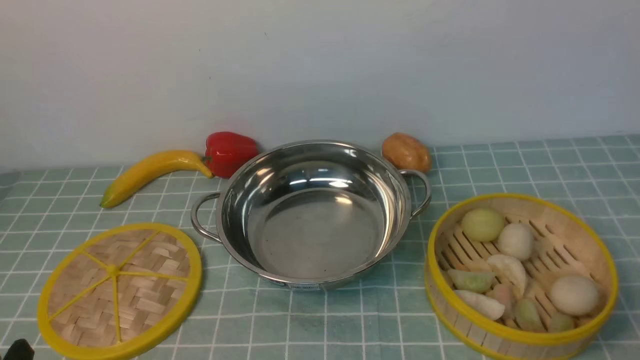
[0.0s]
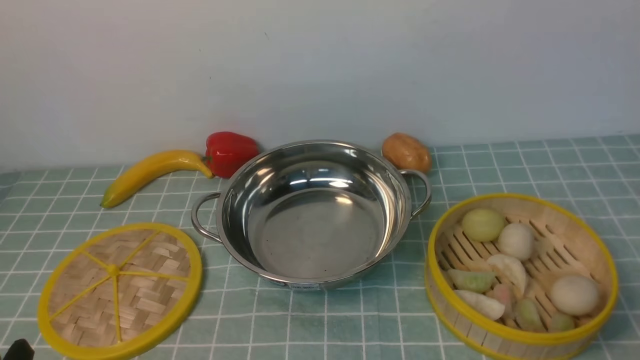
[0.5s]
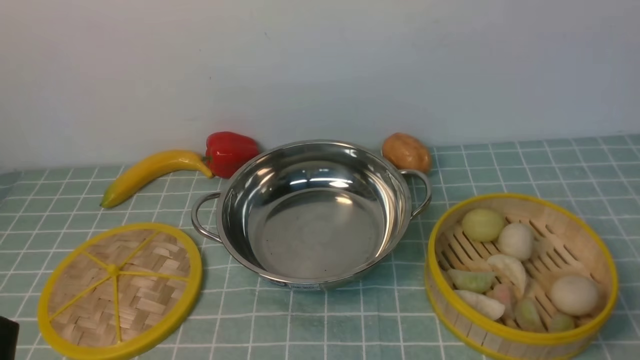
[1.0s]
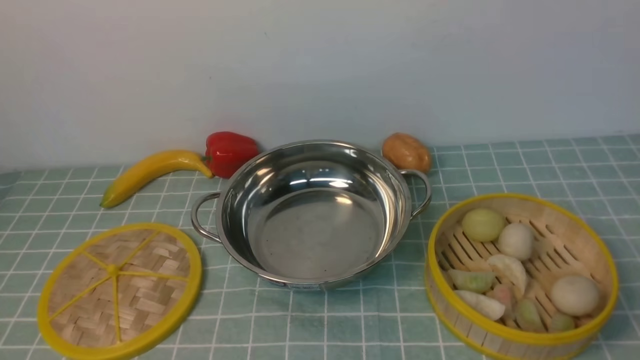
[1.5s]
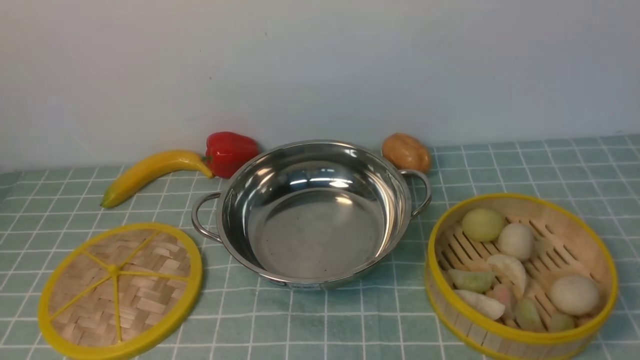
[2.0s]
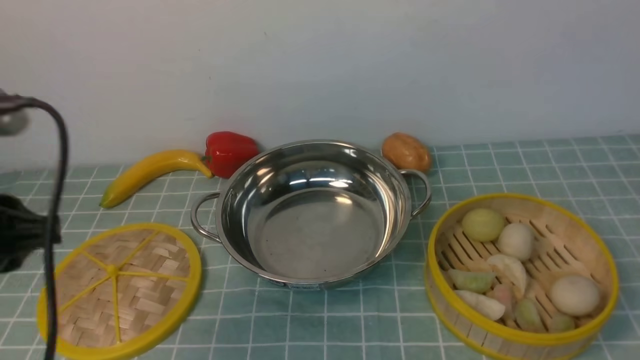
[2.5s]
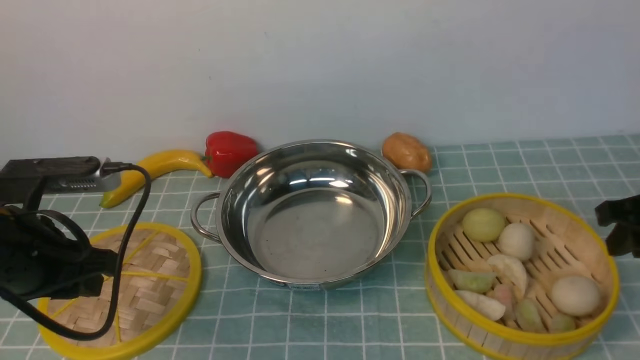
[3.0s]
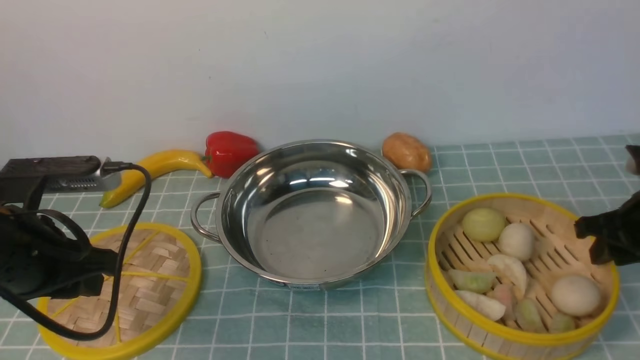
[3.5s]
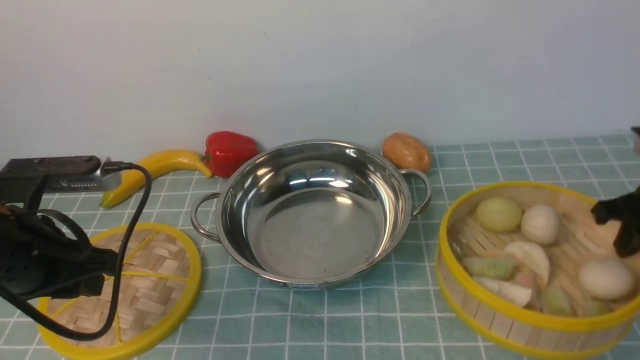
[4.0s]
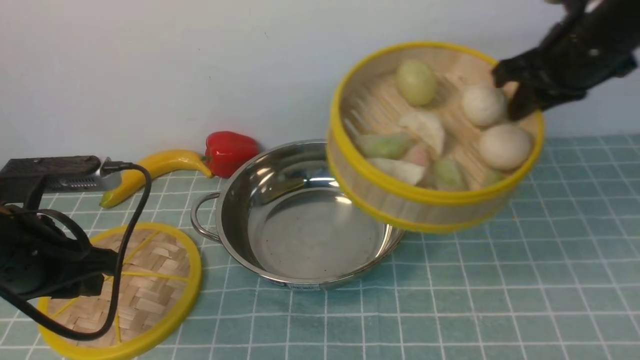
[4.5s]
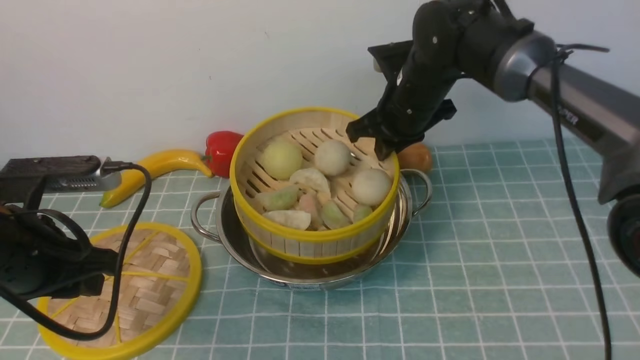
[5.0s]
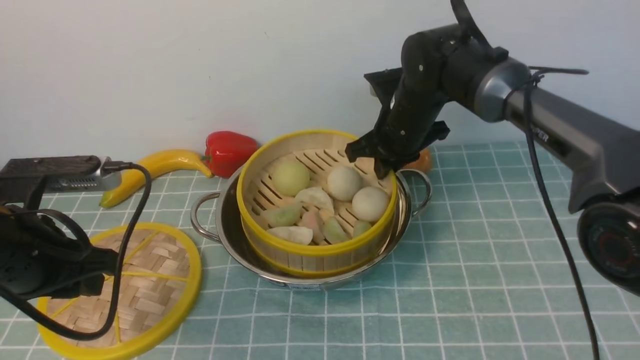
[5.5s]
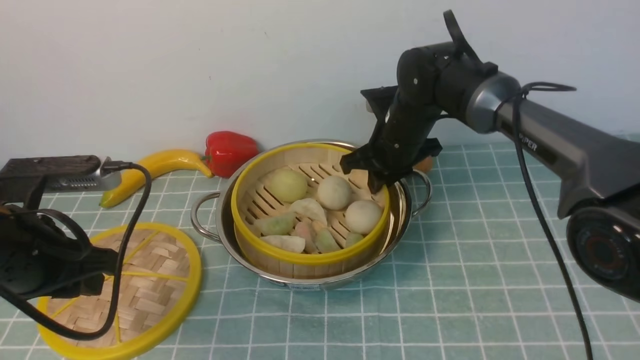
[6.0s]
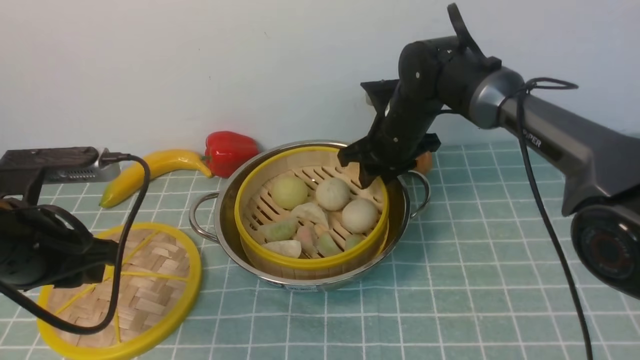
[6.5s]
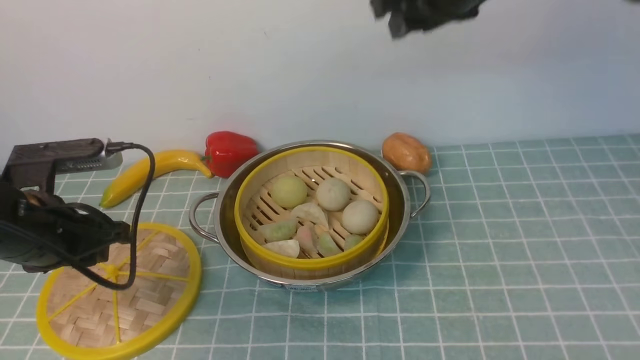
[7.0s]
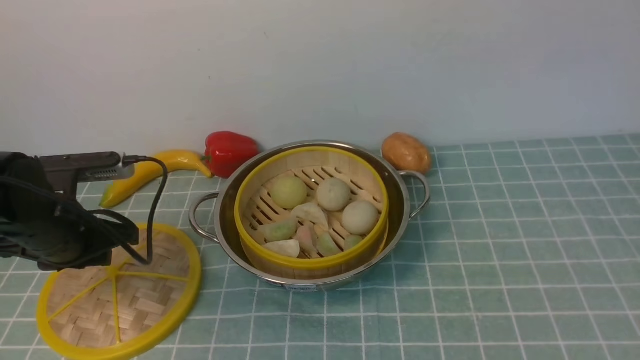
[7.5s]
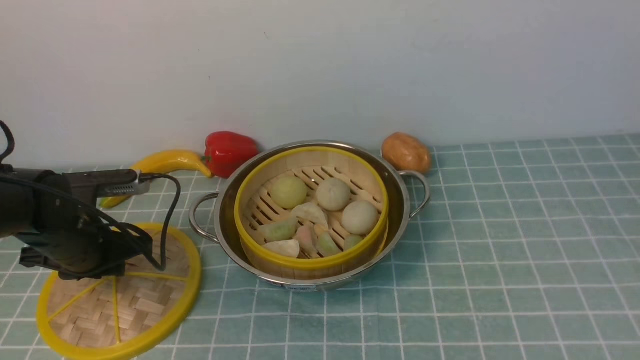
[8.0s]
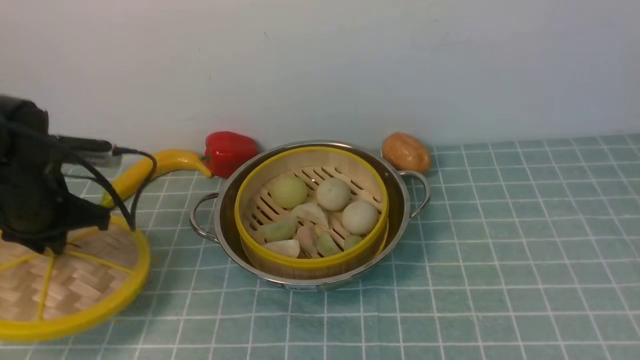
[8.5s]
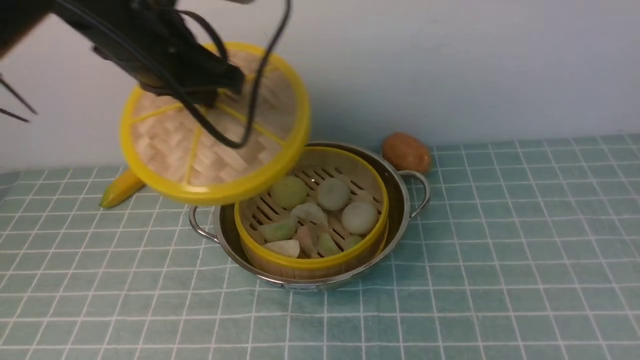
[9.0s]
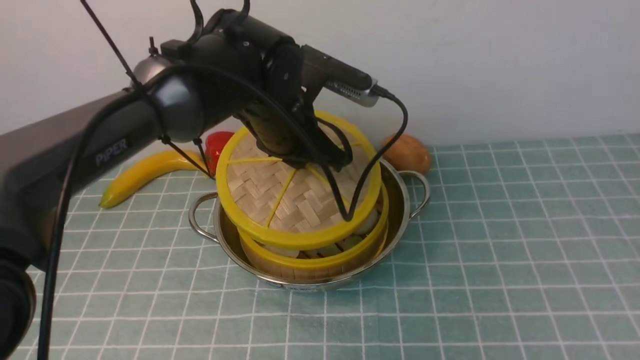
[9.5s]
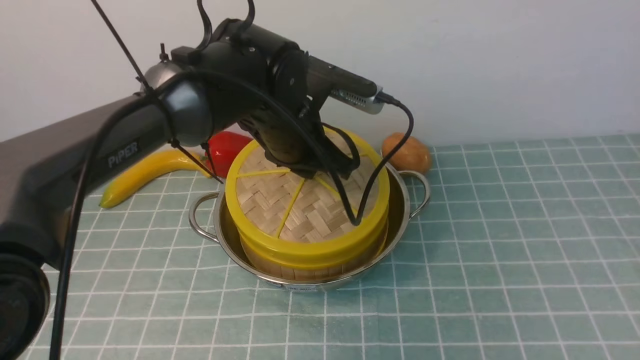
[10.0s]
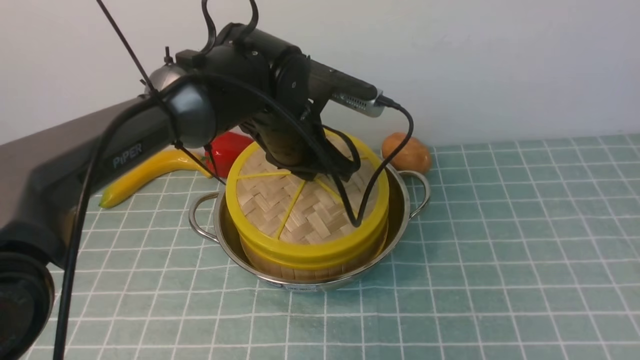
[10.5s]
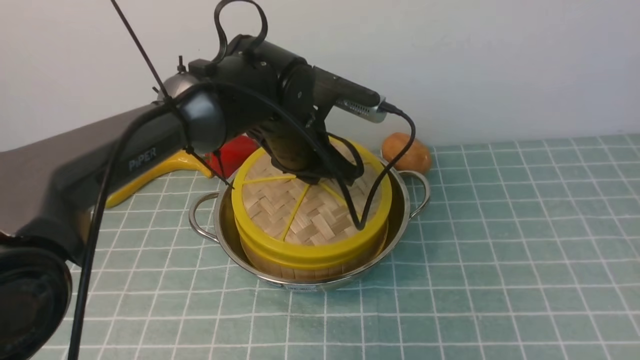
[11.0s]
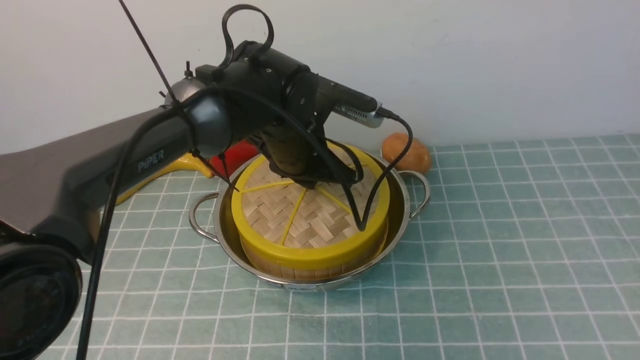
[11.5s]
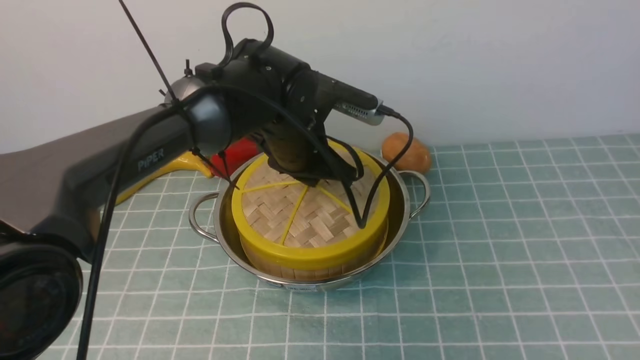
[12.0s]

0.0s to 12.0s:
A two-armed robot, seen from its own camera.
Task of the whole recording: place the steamer in the pot on the blue tablecloth, and put the lid on the steamer.
Step, 0.0s to 4.0s: use the right arm to lift the steamer closest to it.
Step, 4.5s to 6.5s: use the right arm to put the steamer into the iron steamer pot in the middle.
Step, 7.0s to 8.5s: use the left arm to lift the lid of the steamer.
2.0s to 4.0s: Both grippers travel together forward and downward, approximately 30 cm. The right gripper closes.
4.0s to 6.0s: The right gripper moves to the left and forward, approximately 30 cm.
6.0s to 8.0s: The left gripper travels downward and forward by some 15 cm; the right gripper is displaced backward, upward and to the right by about 60 cm, and opens up.
8.0s to 10.0s: The left gripper travels to the right and upward by approximately 25 cm.
10.0s to 12.0s: The grippers move only a little.

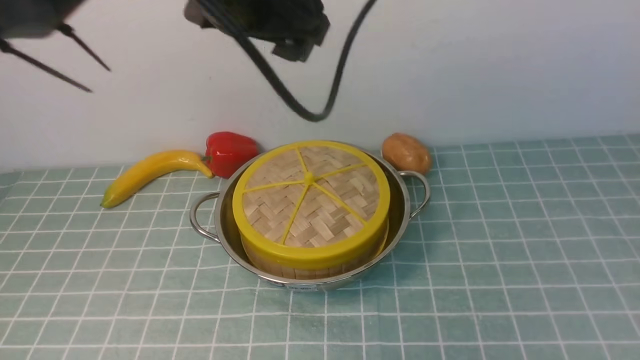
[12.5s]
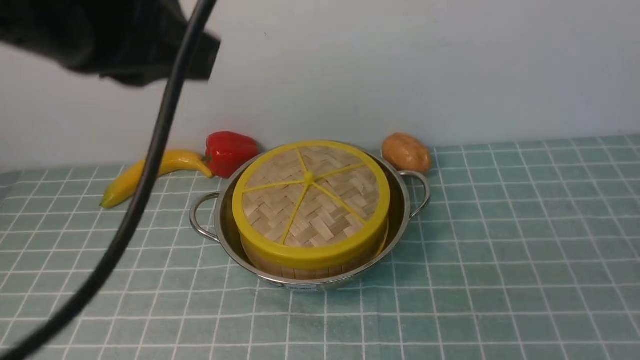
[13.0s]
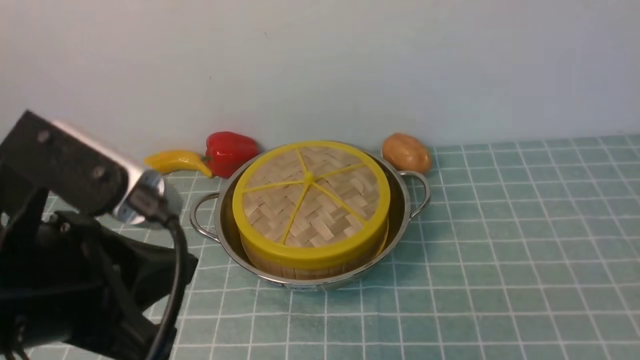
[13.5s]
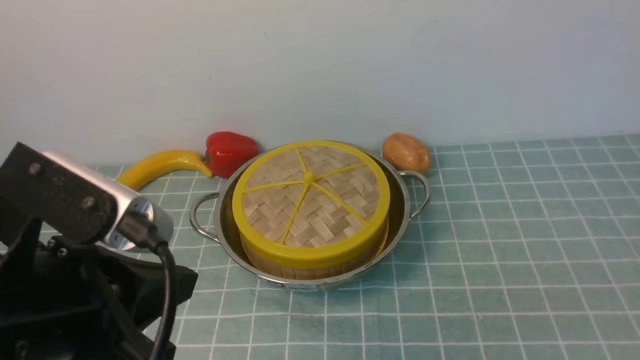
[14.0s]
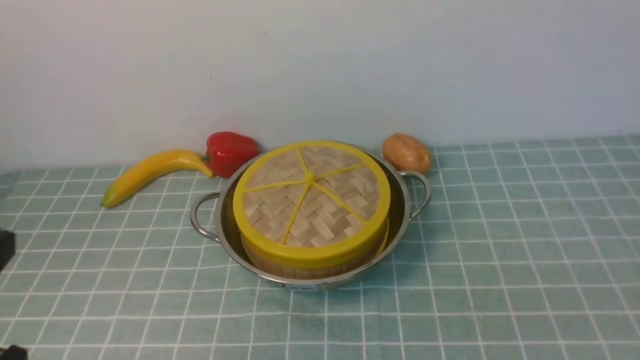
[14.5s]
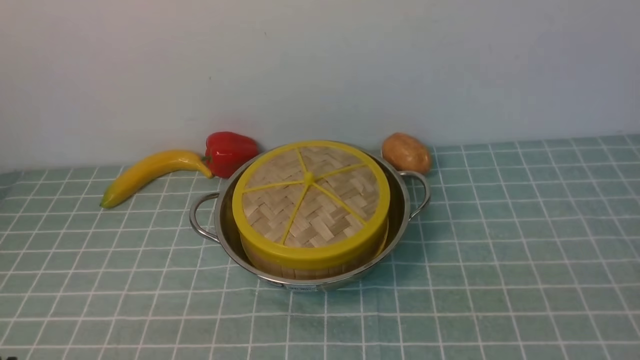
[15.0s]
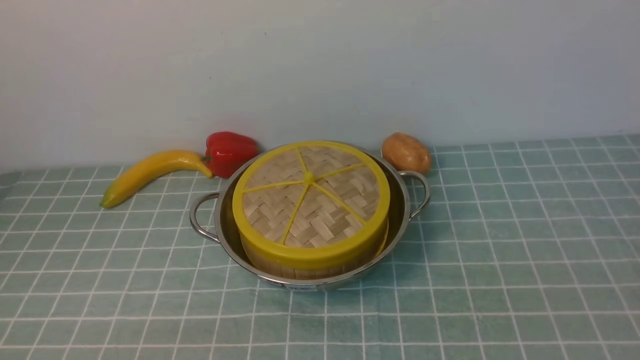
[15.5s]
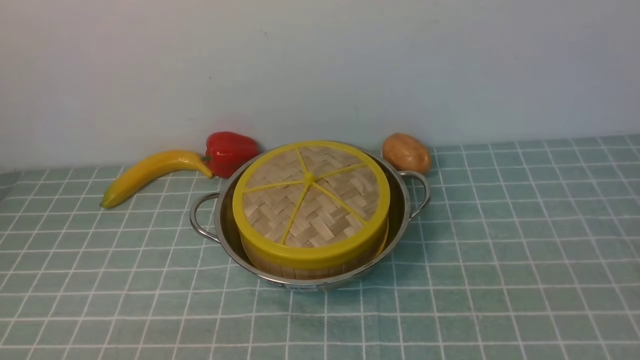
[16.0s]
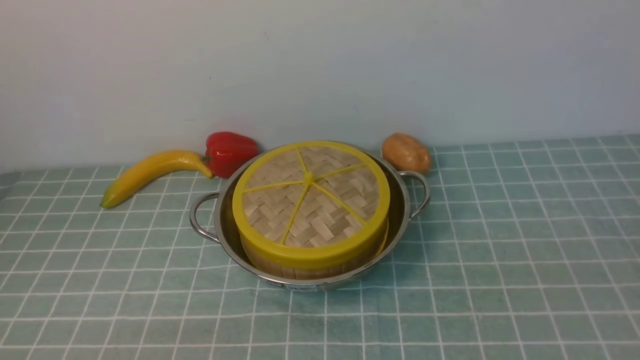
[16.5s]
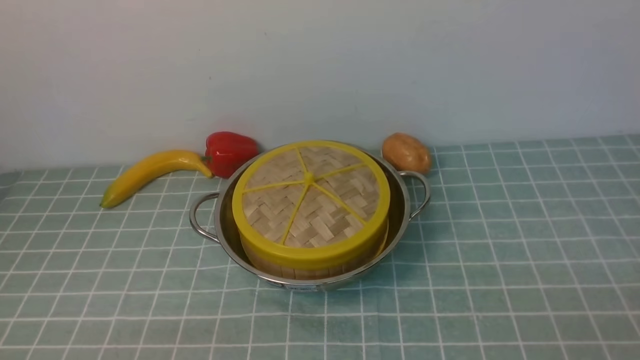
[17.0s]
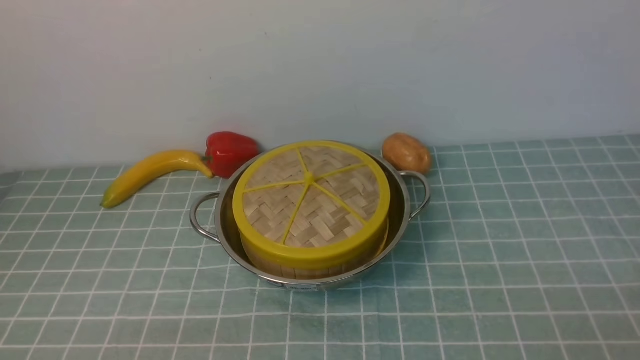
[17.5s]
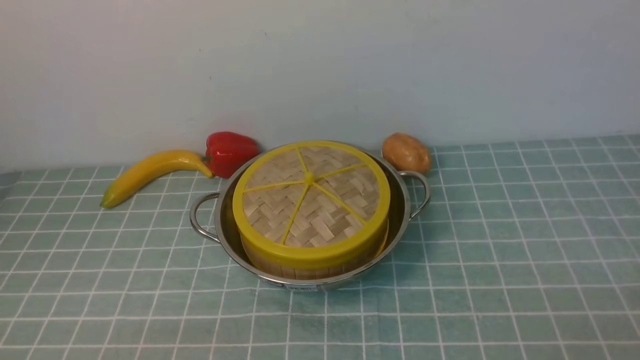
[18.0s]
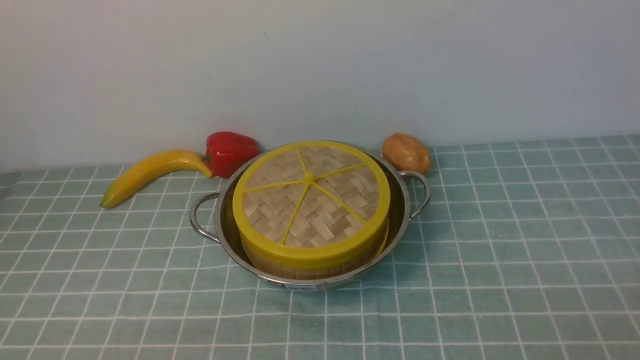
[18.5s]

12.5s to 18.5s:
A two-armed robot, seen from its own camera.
Task of the whole recording: place the steamer in the pot on the blue tablecloth, and put the lid on the steamer.
12.5s to 14.5s: The right gripper travels downward by roughly 20 cm, and closes, then reopens. The left gripper goes some 35 cm backward, to the left and downward, and closes up.
14.5s to 16.5s: The left gripper shifts roughly 15 cm downward.
